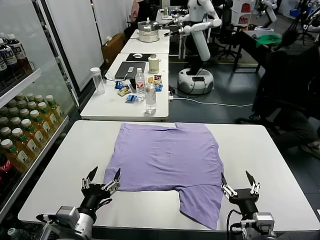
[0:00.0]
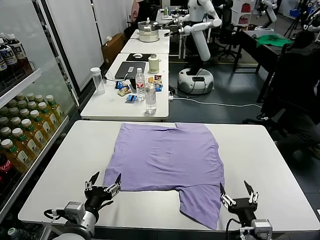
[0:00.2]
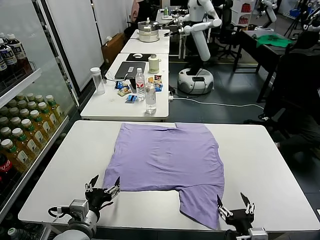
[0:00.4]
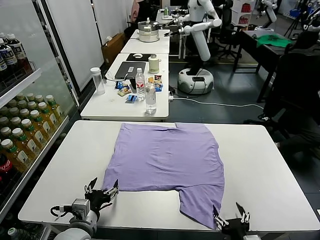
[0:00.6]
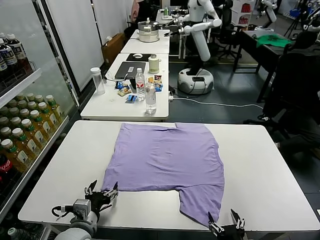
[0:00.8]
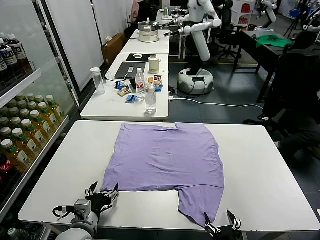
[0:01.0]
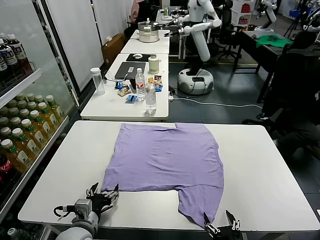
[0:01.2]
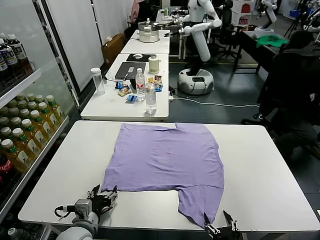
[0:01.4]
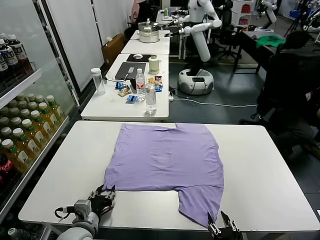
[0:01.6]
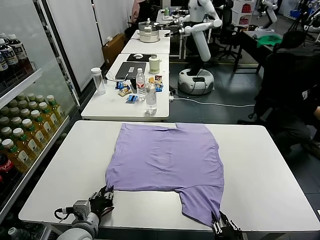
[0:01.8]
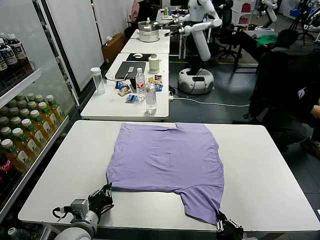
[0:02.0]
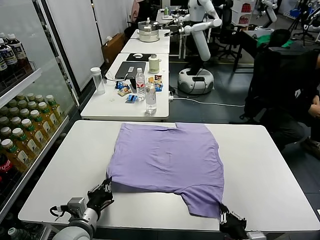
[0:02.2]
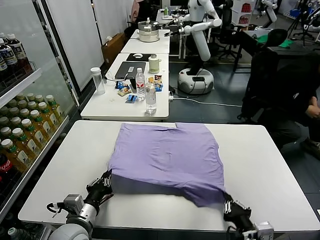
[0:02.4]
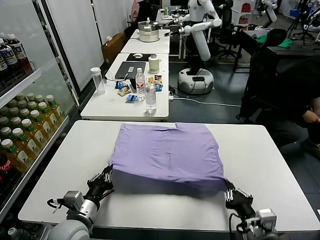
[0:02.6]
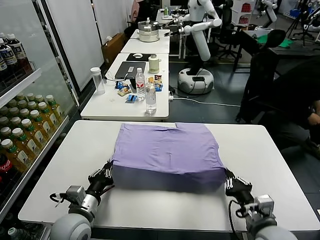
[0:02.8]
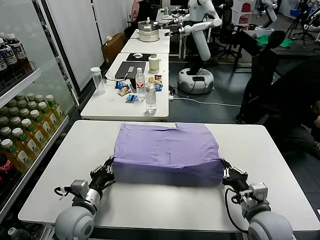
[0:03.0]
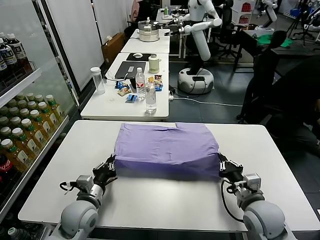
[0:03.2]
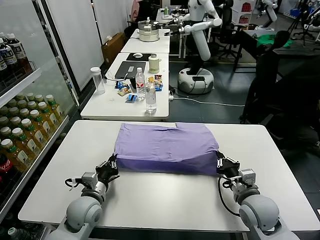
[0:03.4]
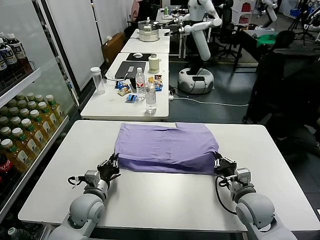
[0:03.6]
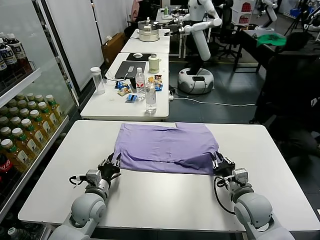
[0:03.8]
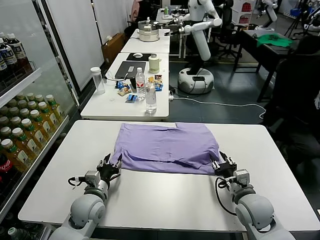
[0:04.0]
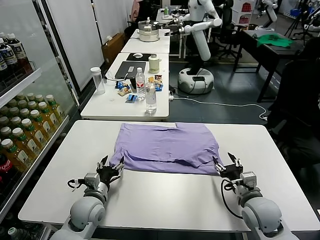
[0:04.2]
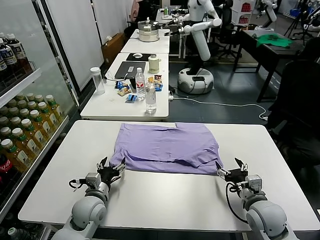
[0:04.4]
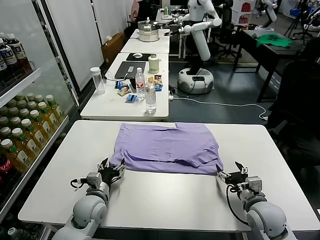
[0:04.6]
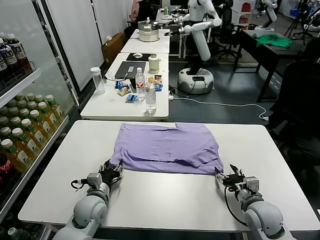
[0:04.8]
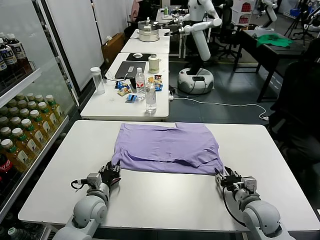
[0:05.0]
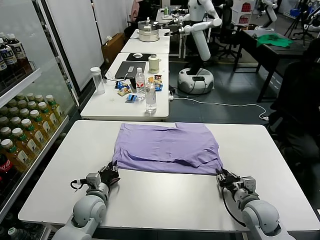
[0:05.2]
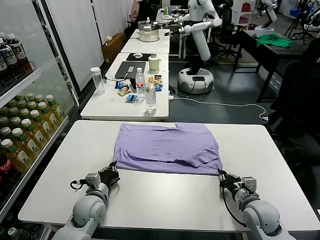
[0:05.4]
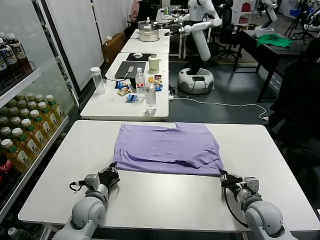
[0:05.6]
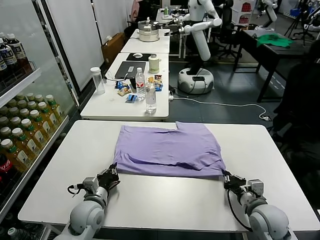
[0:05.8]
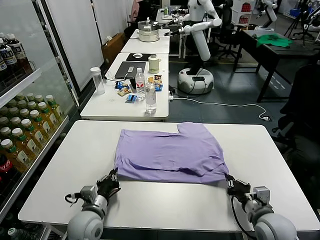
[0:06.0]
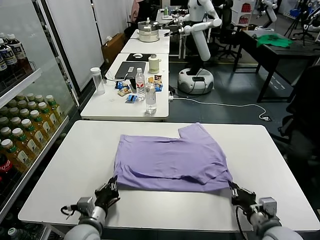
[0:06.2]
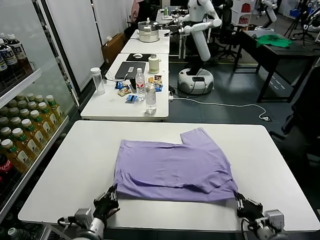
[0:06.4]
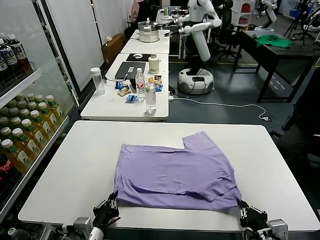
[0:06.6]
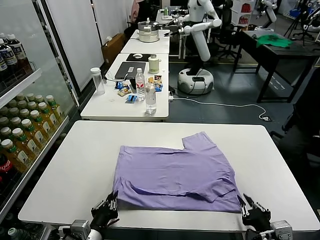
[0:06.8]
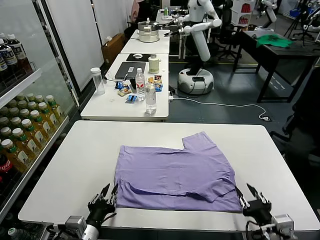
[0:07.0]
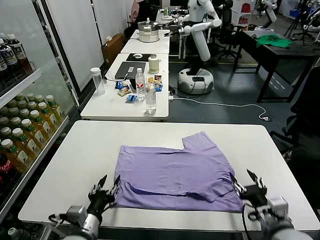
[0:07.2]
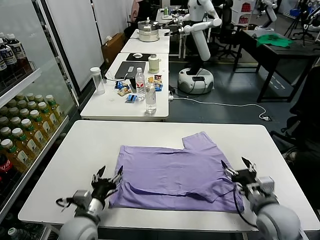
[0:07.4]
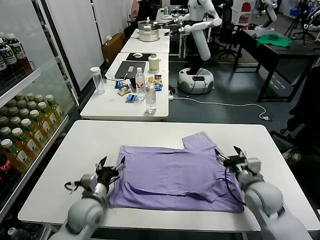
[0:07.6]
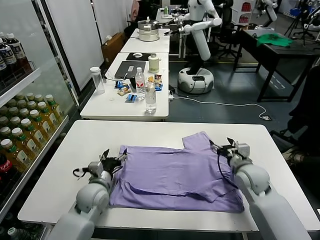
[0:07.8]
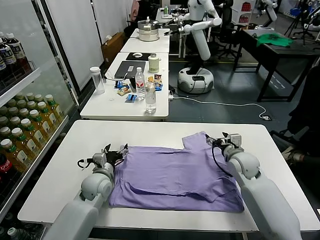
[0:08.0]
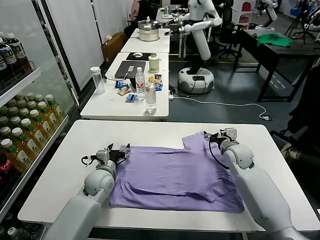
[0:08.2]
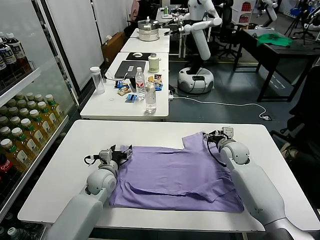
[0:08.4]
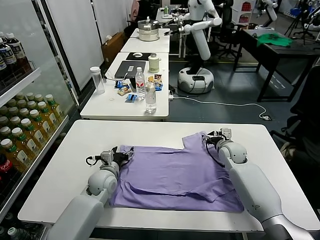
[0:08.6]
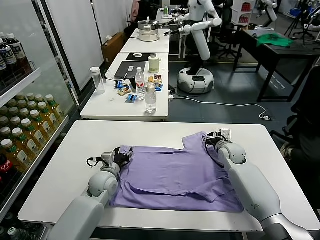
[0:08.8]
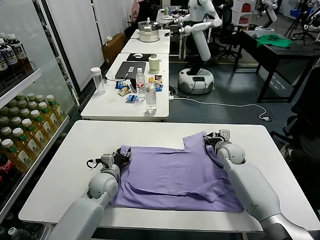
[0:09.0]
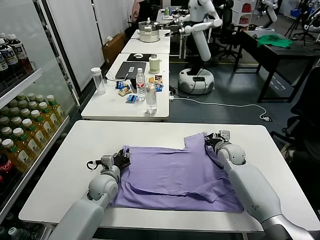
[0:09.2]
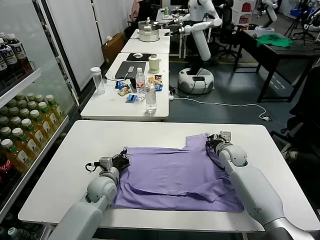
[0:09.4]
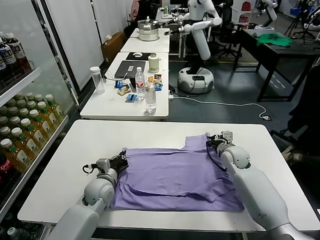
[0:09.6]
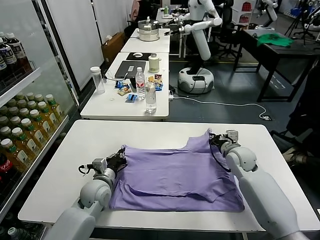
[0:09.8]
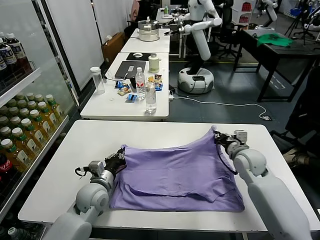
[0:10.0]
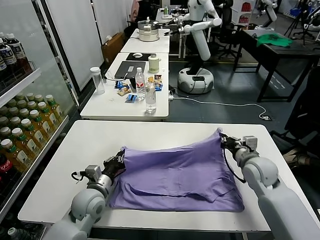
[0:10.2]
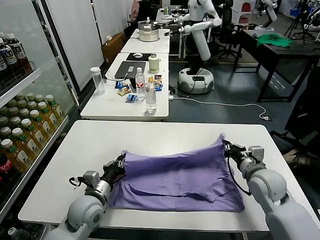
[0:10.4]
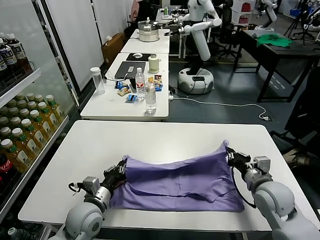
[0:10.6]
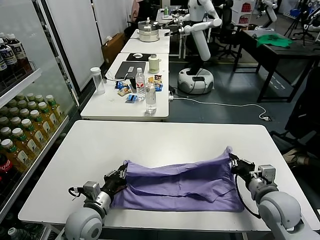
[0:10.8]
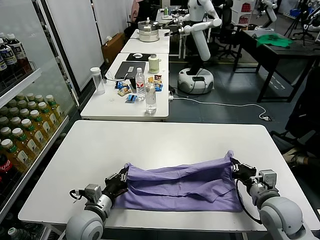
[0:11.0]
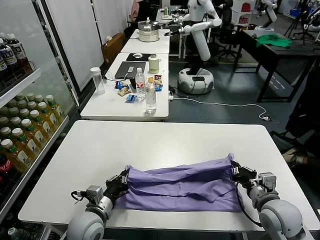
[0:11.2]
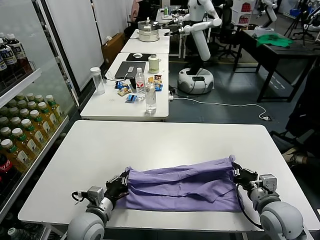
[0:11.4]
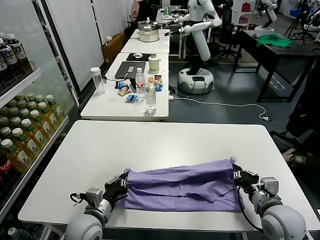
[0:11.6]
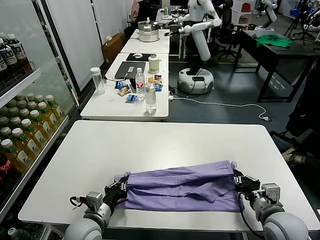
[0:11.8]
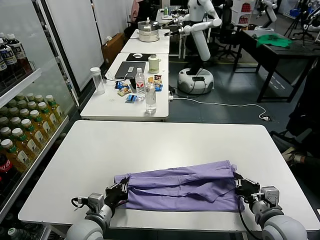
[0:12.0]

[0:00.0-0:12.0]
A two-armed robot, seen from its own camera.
Task of the whole recording: fold and organize the clothes.
Step, 0:00.0 to 0:02.2: use both grippers simultaneously to clamp the lower edge of the clothing fabric.
Step, 0:02.4 to 0:04.0: use both grippers to drag the lower edge of the fabric forward and fold it over the upper edge.
Step, 0:04.2 to 0:07.0: Drag the clothes downward with both gripper.
Step, 0:07.2 to 0:09.4: use both grippers simultaneously to clamp the upper edge of the clothing fabric.
0:01.6 to 0:03.0: The right gripper shifts about 15 cm forward, and closes up; the left gripper heads forward, covering about 5 cm, and closes up.
0:03.0 to 0:04.4: The right gripper opens, while the left gripper ends up about 5 cm from where it was, and opens its fingers.
0:04.4 to 0:06.0: The right gripper heads backward, covering roughly 5 cm, and closes; the left gripper closes up.
0:06.0 to 0:07.6: The left gripper travels backward and back again, some 10 cm each way, and opens, while the right gripper goes roughly 15 cm forward, and opens.
0:07.6 to 0:09.0: The grippers both shift forward by about 15 cm. The left gripper closes; the right gripper closes.
0:09.0 to 0:10.4: The right gripper heads backward and upward, covering roughly 20 cm, and closes its fingers; the left gripper goes about 10 cm backward, and closes its fingers.
0:10.4 to 0:12.0: The left gripper goes some 5 cm backward; the right gripper goes roughly 10 cm backward.

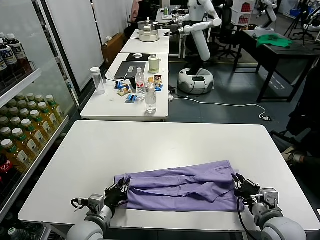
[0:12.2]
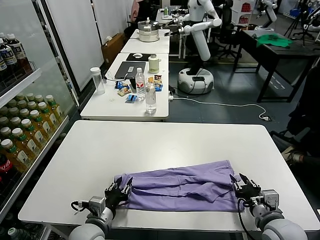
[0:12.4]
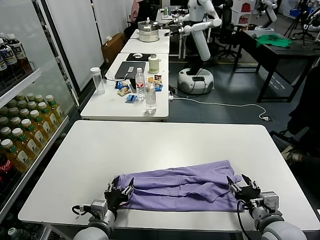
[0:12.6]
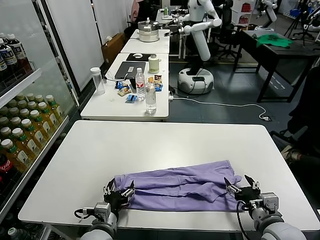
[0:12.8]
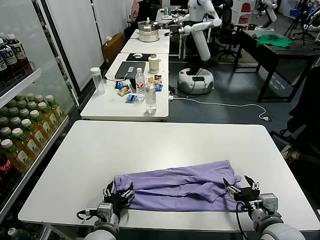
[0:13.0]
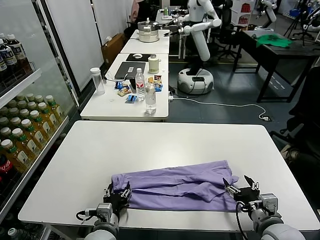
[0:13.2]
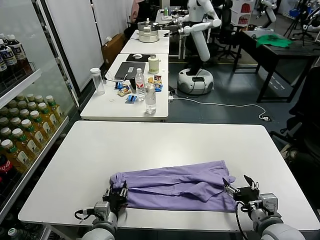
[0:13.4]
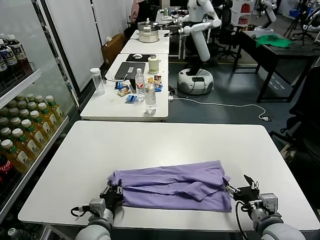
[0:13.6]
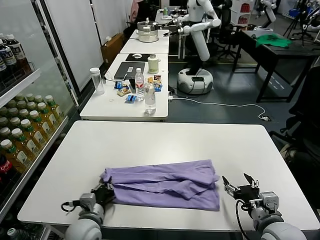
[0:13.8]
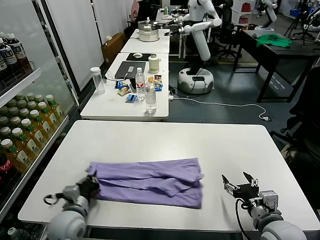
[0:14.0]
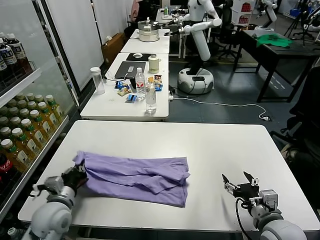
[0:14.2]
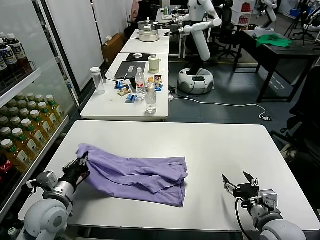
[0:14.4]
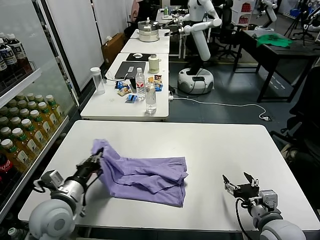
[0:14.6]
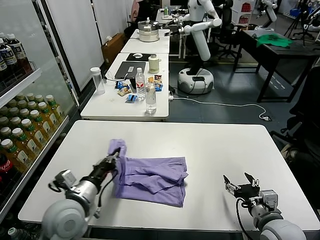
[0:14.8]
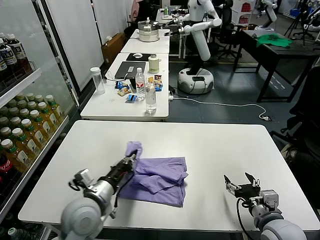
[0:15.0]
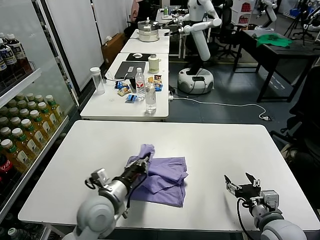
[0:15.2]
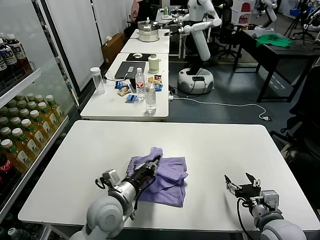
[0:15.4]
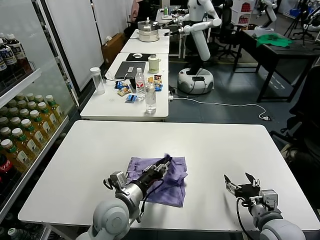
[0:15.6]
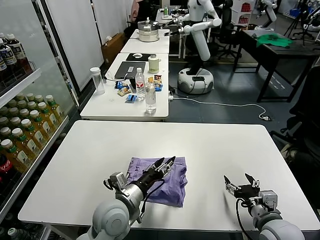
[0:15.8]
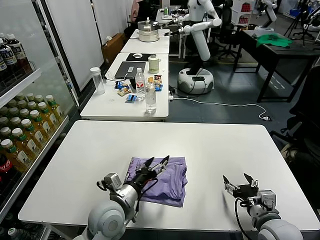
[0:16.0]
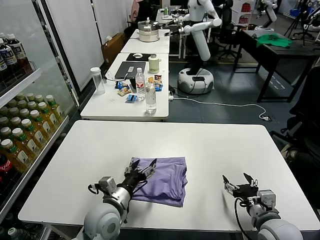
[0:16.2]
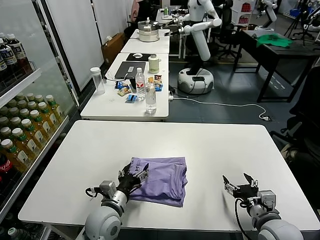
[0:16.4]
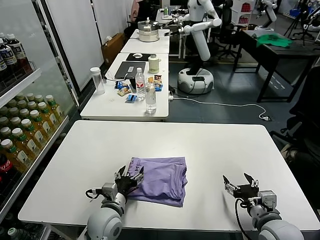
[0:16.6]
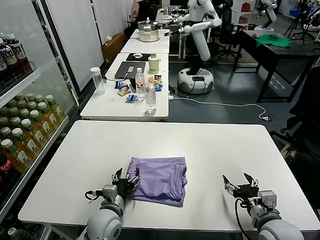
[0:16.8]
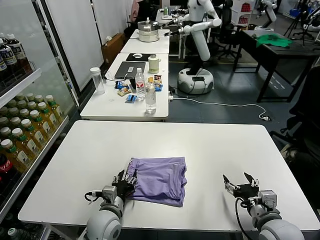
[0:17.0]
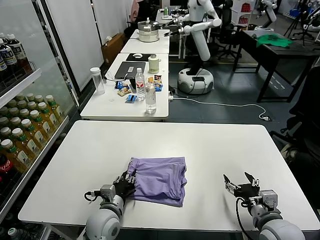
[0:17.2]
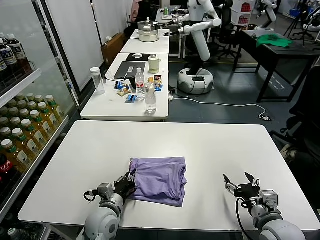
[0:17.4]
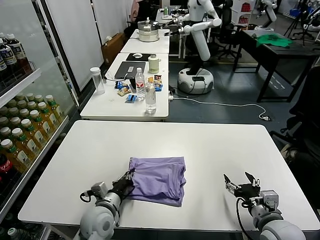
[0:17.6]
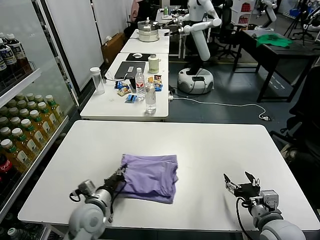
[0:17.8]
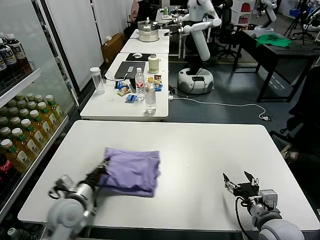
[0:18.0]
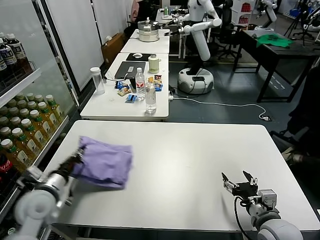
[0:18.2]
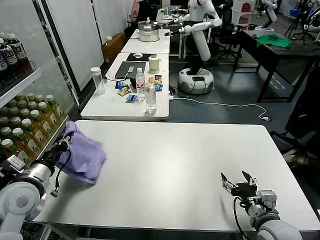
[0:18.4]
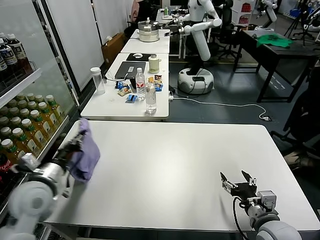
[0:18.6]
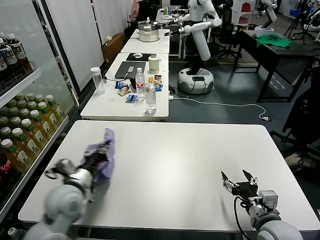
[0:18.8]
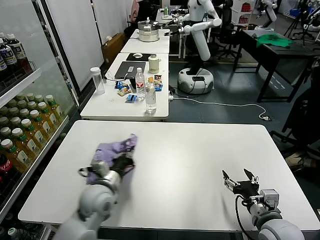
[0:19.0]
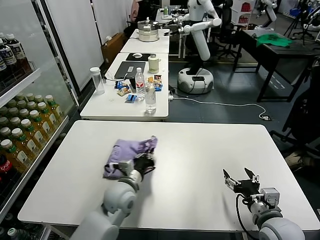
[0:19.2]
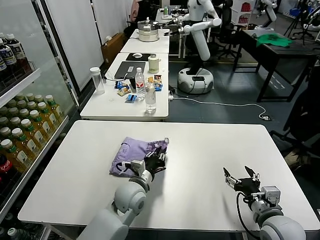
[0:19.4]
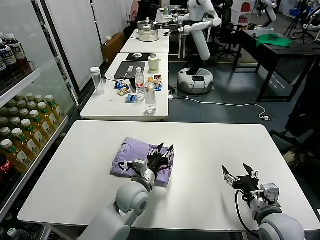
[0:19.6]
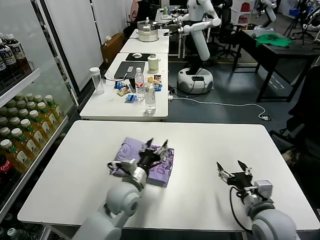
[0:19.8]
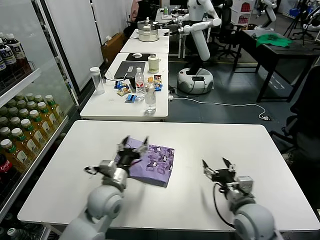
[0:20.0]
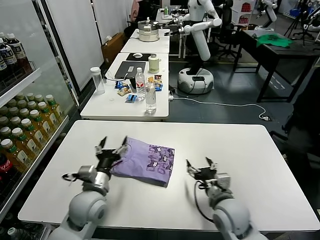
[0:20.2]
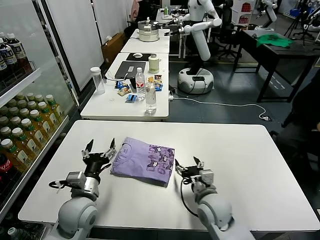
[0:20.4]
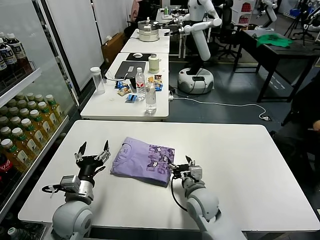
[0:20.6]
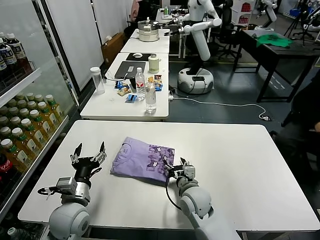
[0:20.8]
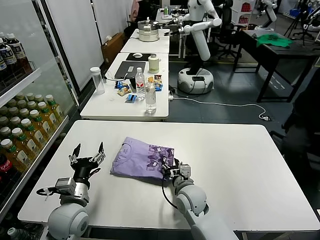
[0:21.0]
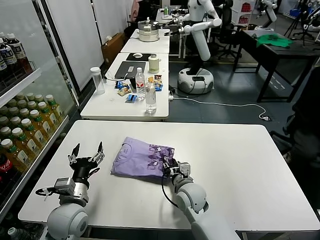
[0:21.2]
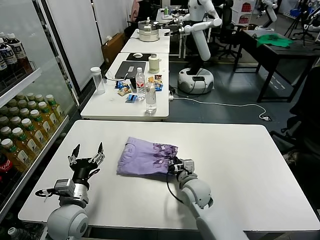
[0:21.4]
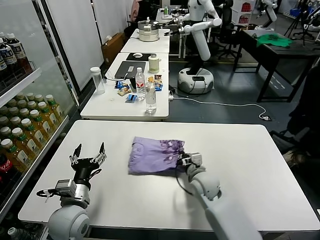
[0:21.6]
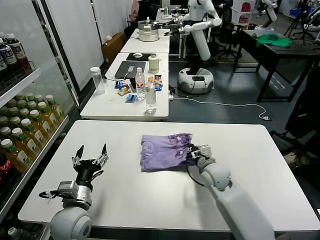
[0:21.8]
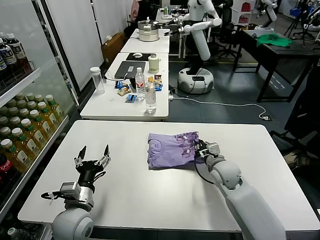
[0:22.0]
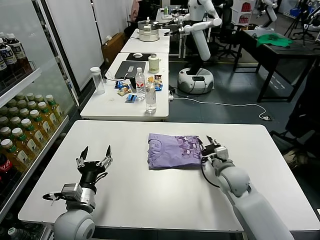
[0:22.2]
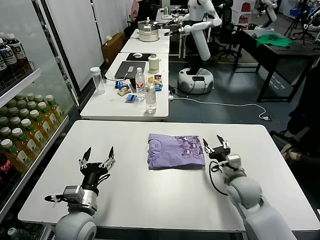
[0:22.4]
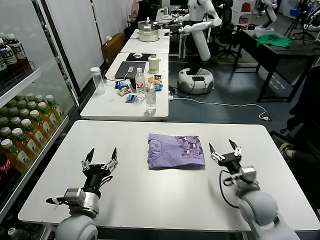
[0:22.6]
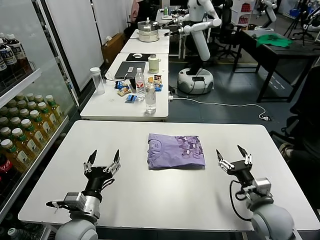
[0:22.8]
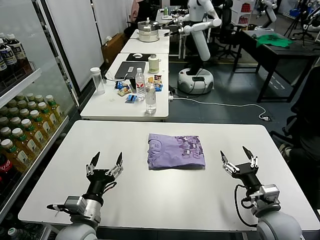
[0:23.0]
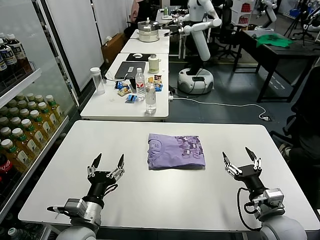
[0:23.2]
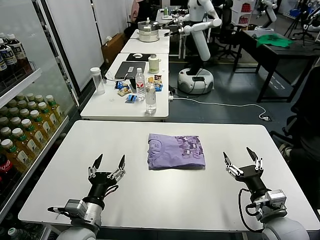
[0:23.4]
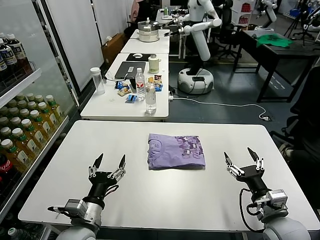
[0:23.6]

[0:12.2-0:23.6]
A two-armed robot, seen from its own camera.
Task of the whole recording: fold and organize the clothes.
Step, 0:13.0 to 0:13.8: use the left gripper to clamp the left edge of the fabric.
Step, 0:14.0 to 0:16.4: use the left gripper to drag the left edge of the fabric to the left and folds it over the right edge.
Step, 0:16.6 to 0:19.6: Flip the folded clothes over with left gripper.
Step, 0:19.8 to 0:22.4: Drag the clothes to the center of the table.
0:12.2 to 0:13.6: The left gripper opens and closes again, while the right gripper opens its fingers.
0:13.6 to 0:15.0: The left gripper moves upward, roughly 10 cm.
0:15.0 to 0:16.4: The left gripper moves downward, about 5 cm, and opens.
0:16.4 to 0:17.8: The left gripper changes place by some 5 cm, and closes its fingers.
0:17.8 to 0:19.4: The left gripper is displaced to the right and forward by some 10 cm.
0:19.4 to 0:20.8: The left gripper goes roughly 15 cm to the left and backward, and opens; the right gripper moves to the left and forward, roughly 25 cm.
0:20.8 to 0:22.2: The right gripper goes roughly 15 cm to the right and forward, and closes.
0:22.2 to 0:23.6: The left gripper moves some 5 cm, while the right gripper moves backward, roughly 20 cm, and opens.
